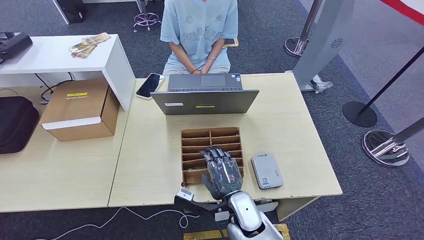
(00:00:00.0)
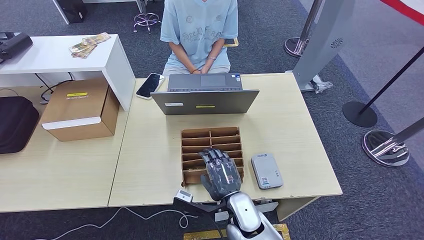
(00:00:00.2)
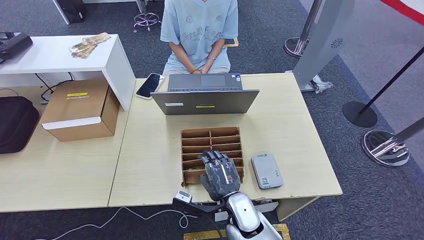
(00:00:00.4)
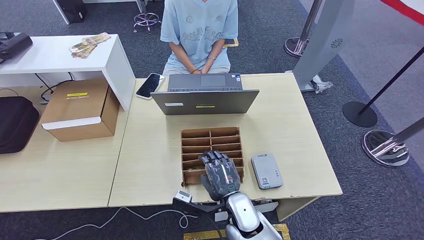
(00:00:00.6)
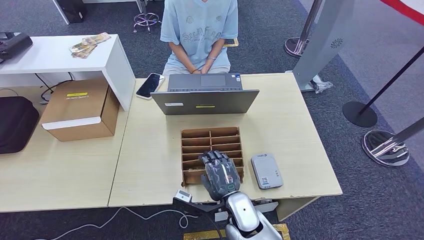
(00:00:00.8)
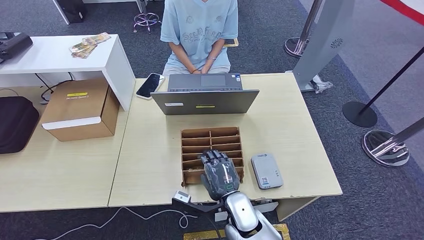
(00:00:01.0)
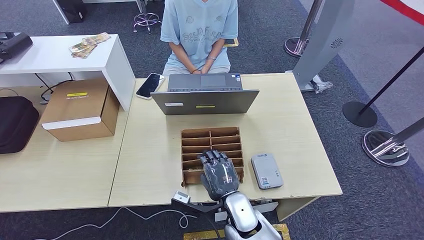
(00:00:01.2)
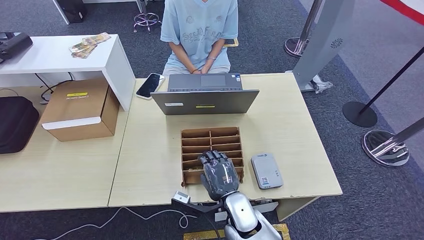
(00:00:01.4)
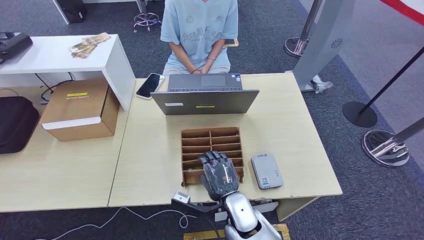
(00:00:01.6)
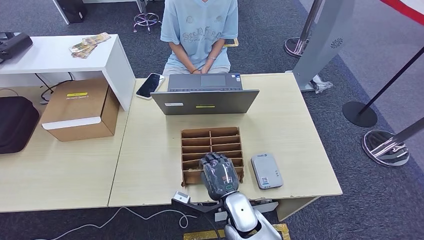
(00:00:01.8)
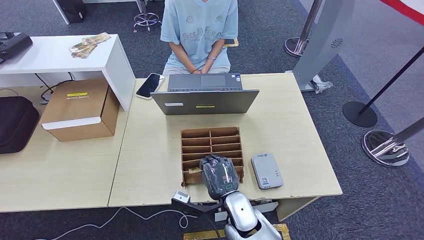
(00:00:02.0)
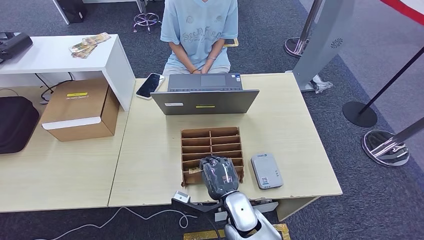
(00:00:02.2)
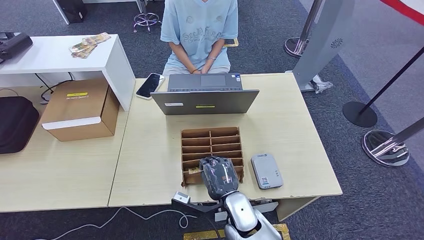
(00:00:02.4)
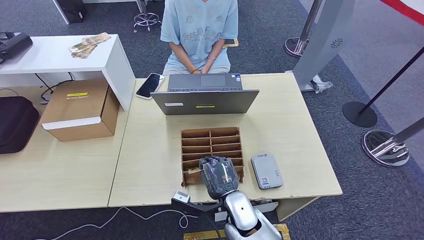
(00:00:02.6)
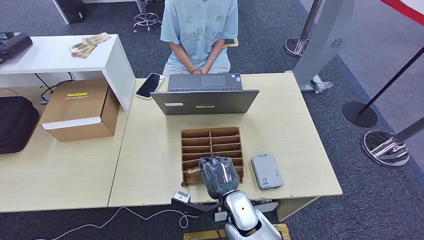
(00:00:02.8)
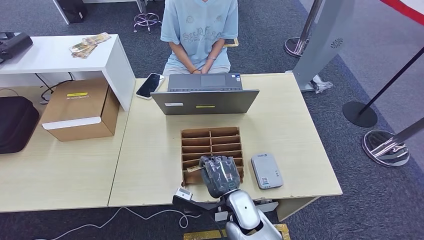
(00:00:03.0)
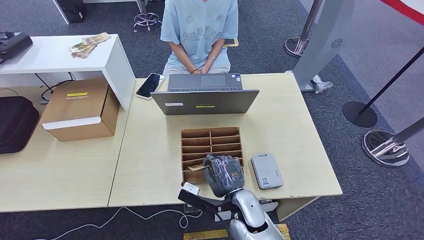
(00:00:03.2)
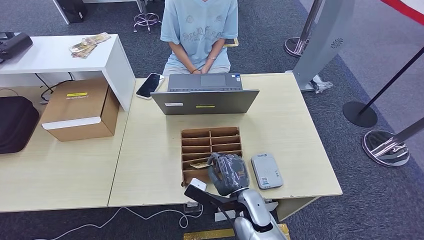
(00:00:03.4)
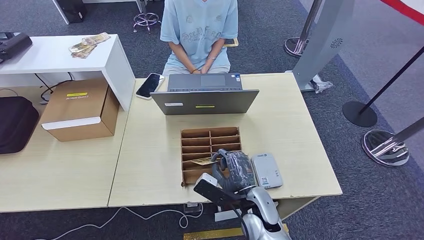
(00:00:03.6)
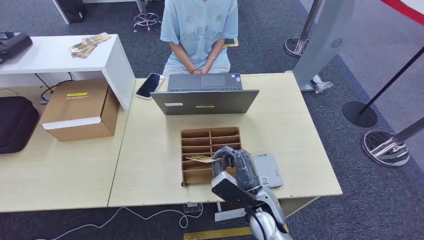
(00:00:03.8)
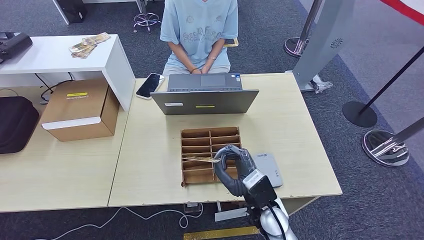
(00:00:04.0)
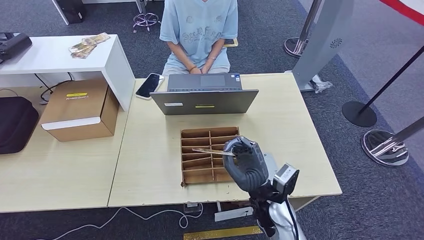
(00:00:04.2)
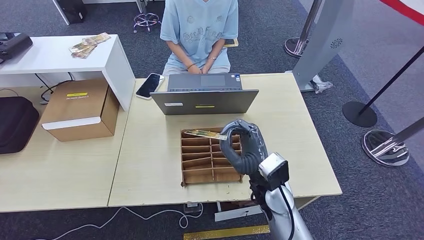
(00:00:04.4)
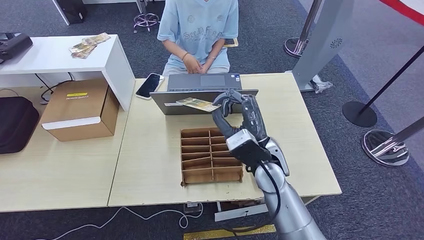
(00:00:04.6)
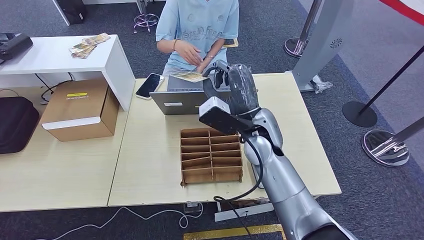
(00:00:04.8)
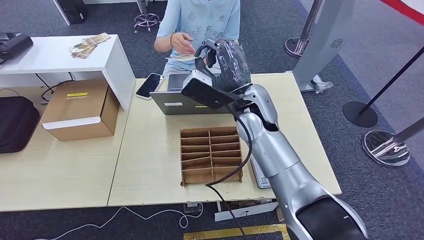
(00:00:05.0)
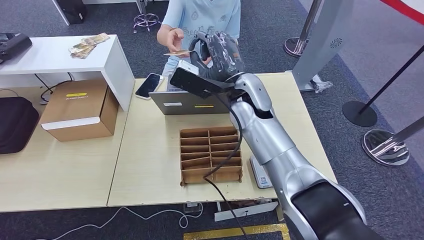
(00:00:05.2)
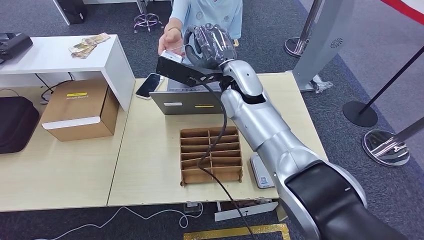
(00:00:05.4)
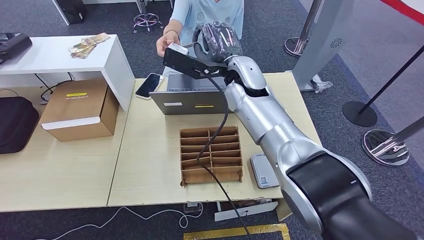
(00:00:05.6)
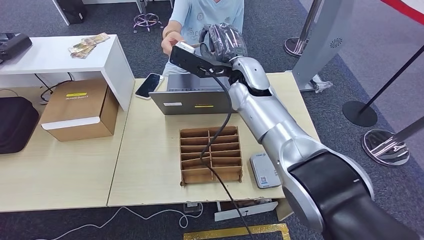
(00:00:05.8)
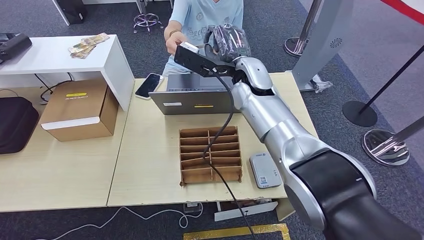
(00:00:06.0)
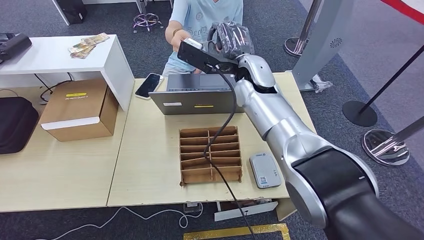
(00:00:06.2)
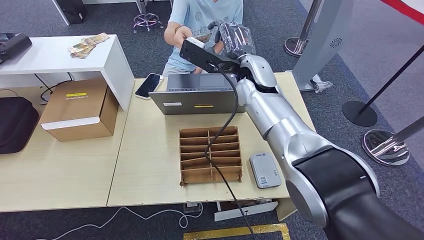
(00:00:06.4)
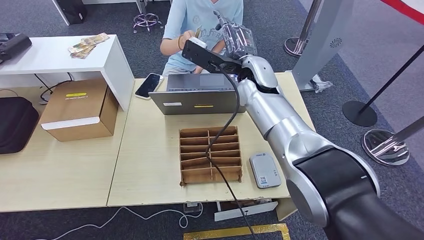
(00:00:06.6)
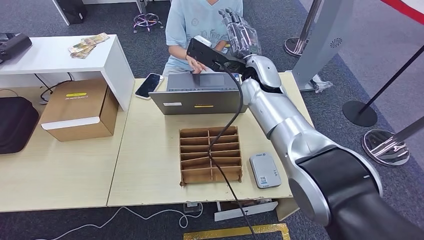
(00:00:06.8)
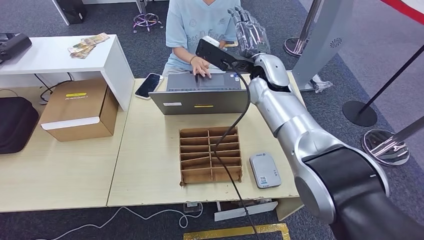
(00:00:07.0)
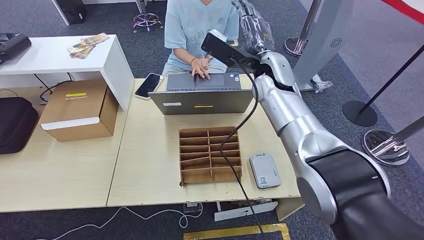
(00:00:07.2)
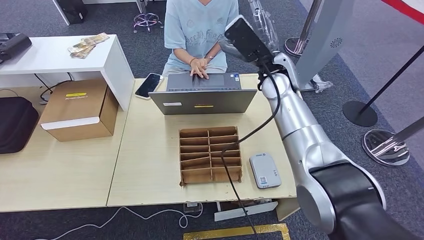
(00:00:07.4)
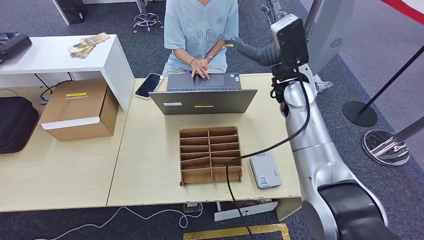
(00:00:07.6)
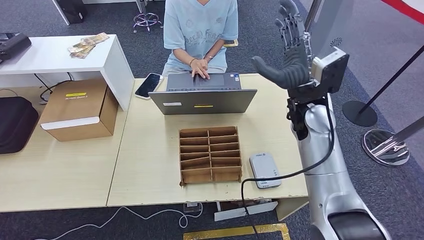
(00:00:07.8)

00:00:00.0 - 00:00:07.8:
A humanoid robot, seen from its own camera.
Step, 00:00:00.0 - 00:00:04.6: Pick up the room key from the key card box.
Step, 00:00:04.8 - 00:00:07.8: Hand the room key to the person.
00:00:00.0 - 00:00:03.2: The hands move only a little.
00:00:03.2 - 00:00:04.6: The right hand moves upward and forward, some 15 cm.
00:00:04.6 - 00:00:06.2: The right hand travels forward and upward by roughly 20 cm.
00:00:06.2 - 00:00:07.8: The right hand shifts roughly 15 cm to the right and backward.
